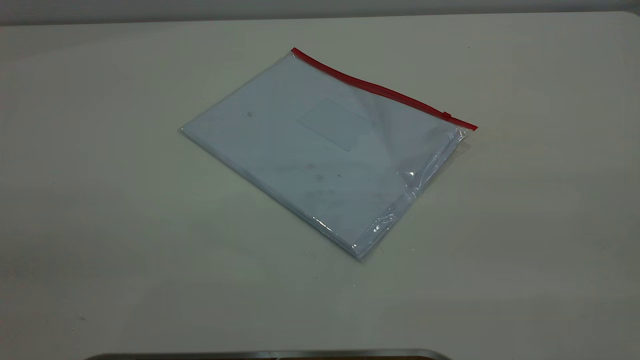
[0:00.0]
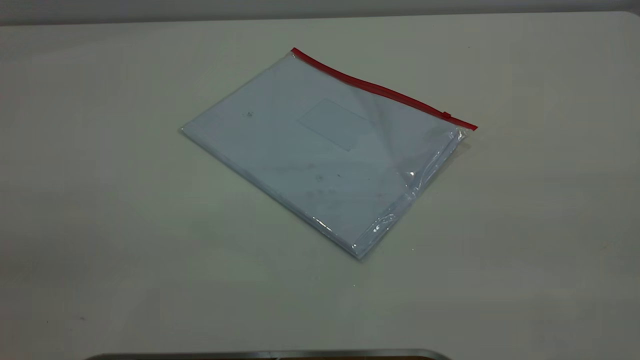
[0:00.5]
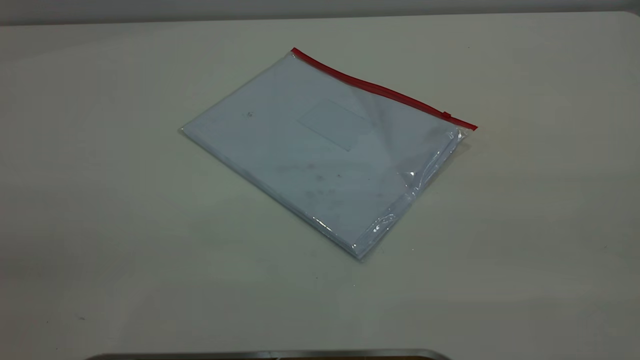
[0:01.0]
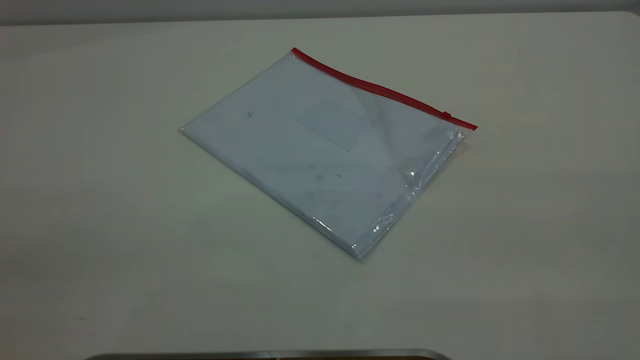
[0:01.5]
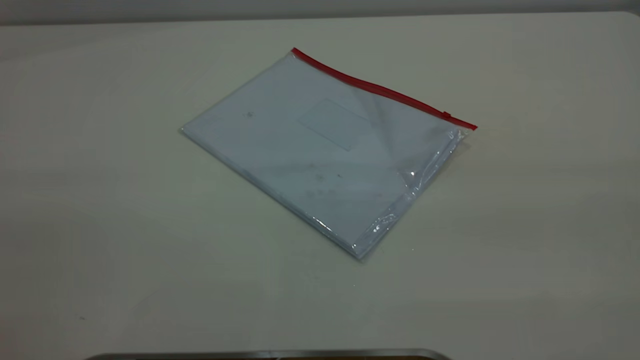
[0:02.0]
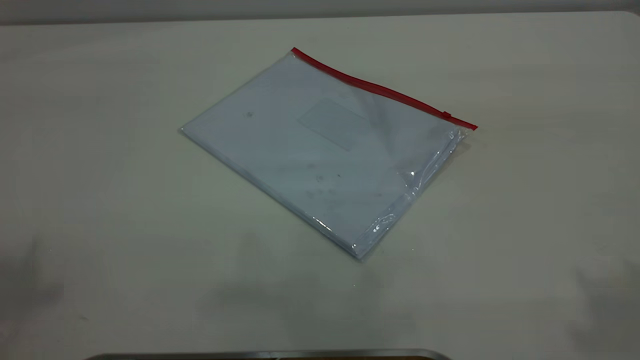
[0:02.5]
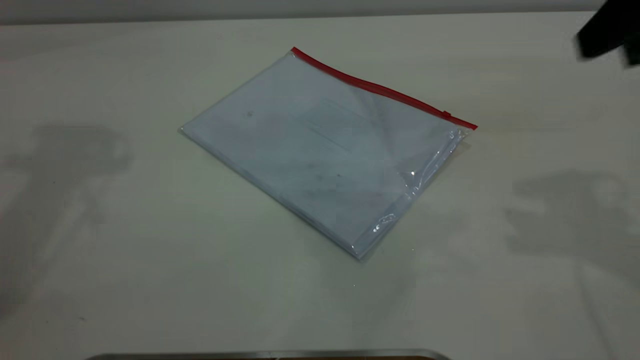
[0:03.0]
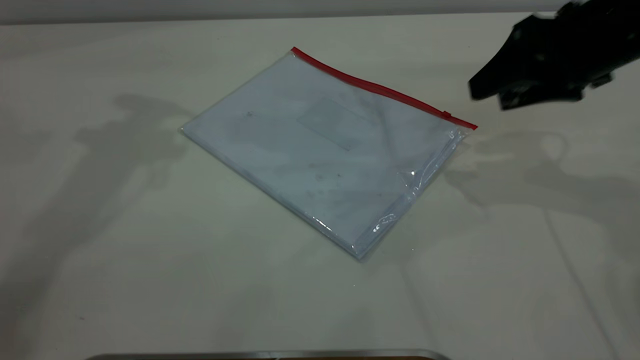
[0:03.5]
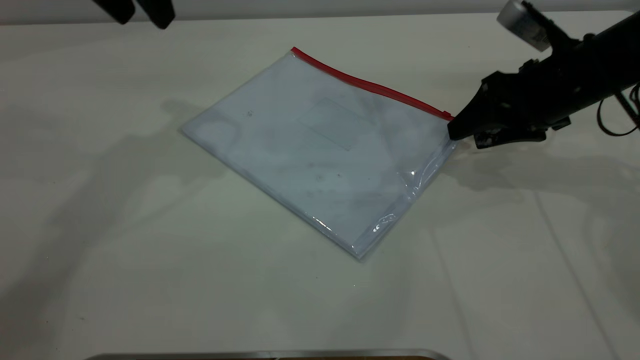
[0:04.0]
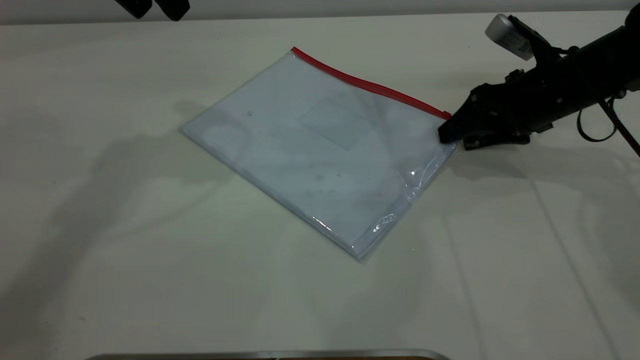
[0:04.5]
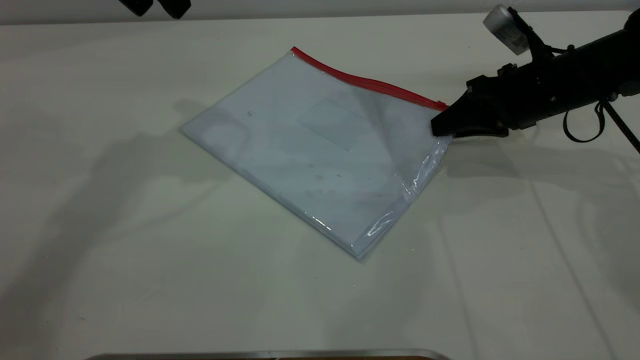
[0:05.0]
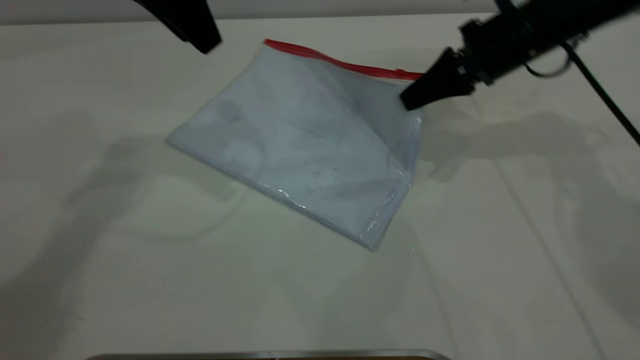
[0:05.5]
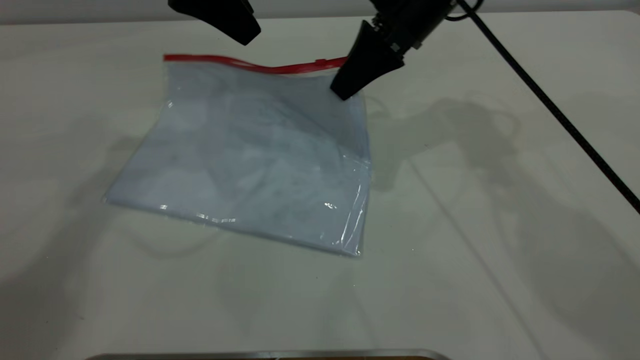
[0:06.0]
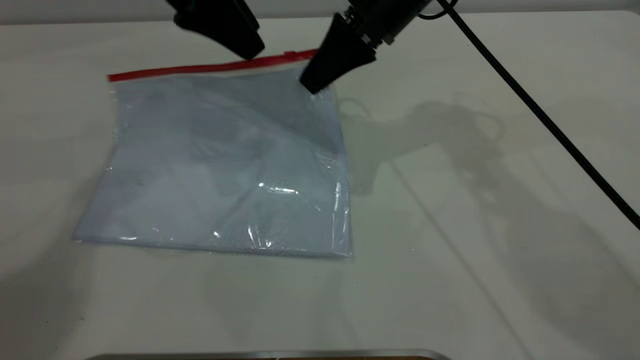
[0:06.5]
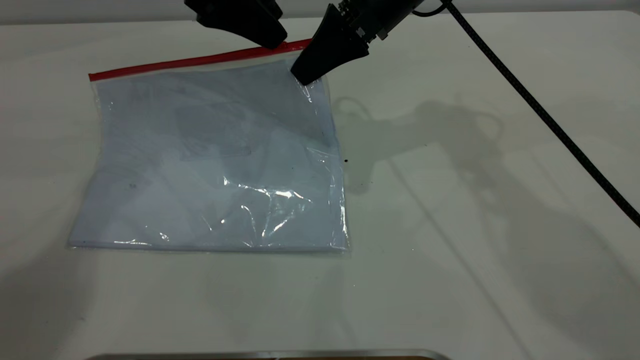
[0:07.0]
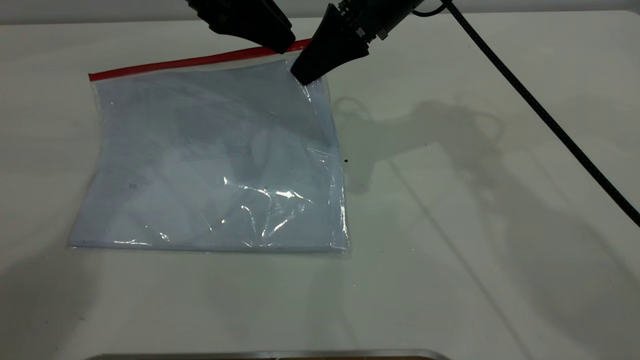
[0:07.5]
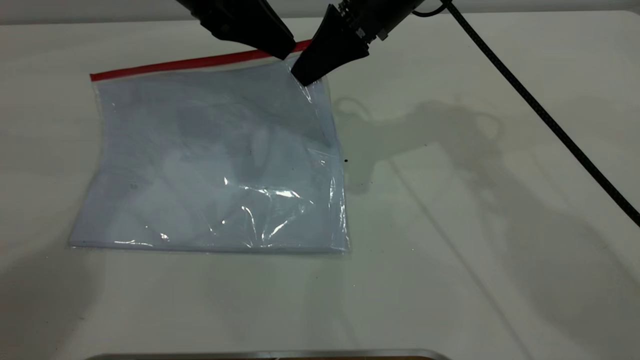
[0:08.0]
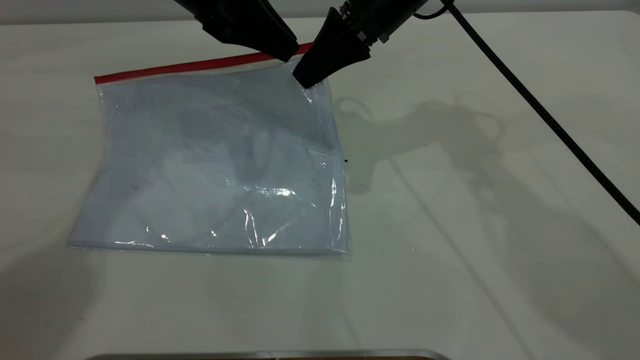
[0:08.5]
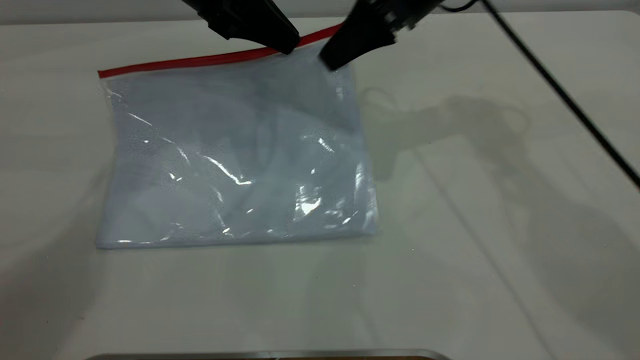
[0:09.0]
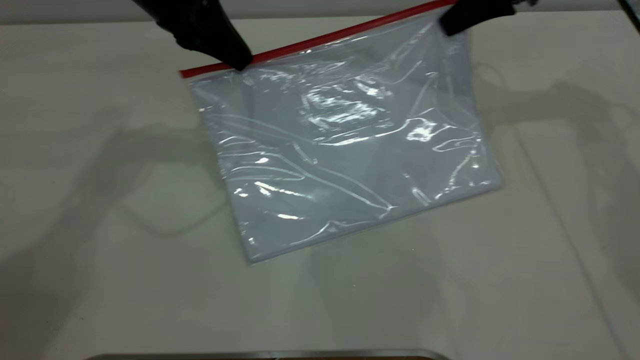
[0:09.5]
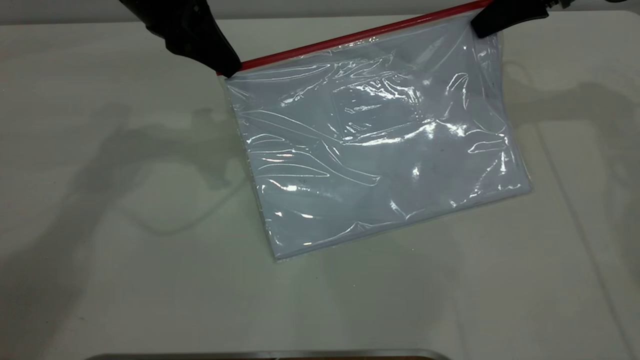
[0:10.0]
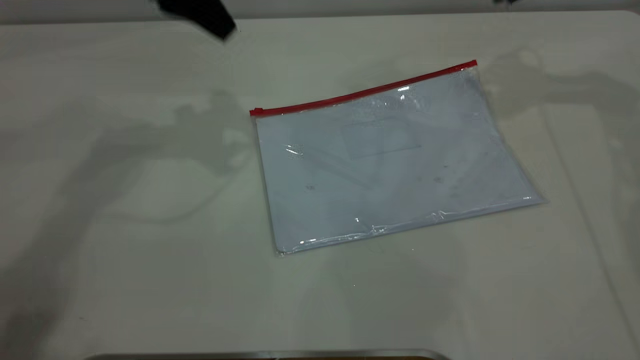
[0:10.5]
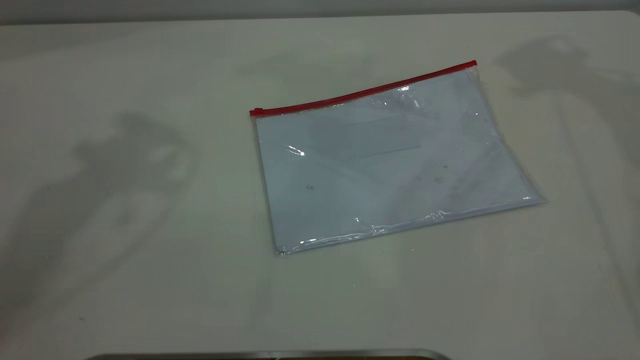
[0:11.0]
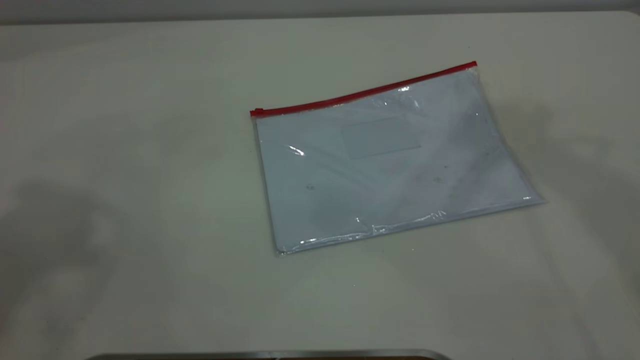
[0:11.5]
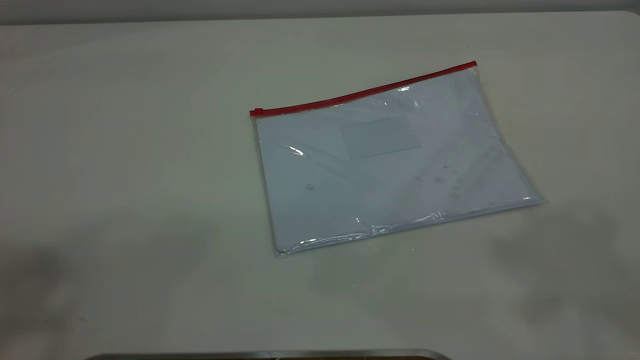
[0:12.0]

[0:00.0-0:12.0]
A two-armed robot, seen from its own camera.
Step, 0:00.0 to 0:05.0: Pick up the transparent plastic bag with the right gripper.
Step, 0:06.0 to 0:10.0: Pulling up the zipper on the transparent plastic bag with the left gripper to close it.
Step, 0:10.5 to 0:11.0: Place the transparent plastic bag.
0:02.0 to 0:04.0: The right gripper heads forward and downward, covering about 50 cm.
0:04.0 to 0:06.0: The right gripper goes about 15 cm to the left and upward, and closes.
0:06.0 to 0:08.0: The left gripper closes its fingers.
0:08.0 to 0:10.0: The right gripper heads to the right, covering roughly 20 cm.
0:10.0 to 0:12.0: Both grippers travel together upward and backward, about 40 cm. The right gripper opens its fingers. The left gripper opens.
